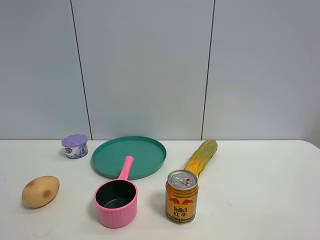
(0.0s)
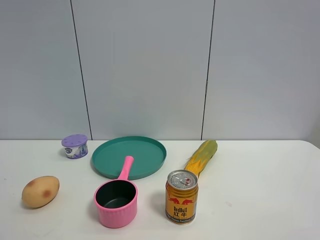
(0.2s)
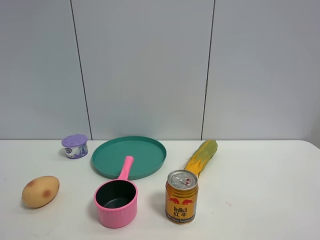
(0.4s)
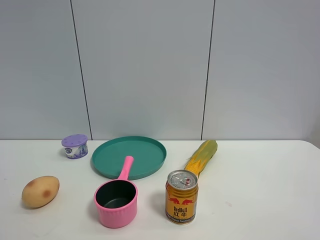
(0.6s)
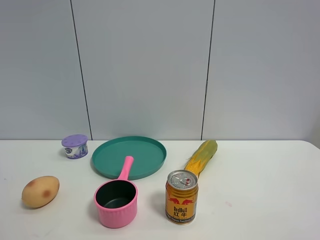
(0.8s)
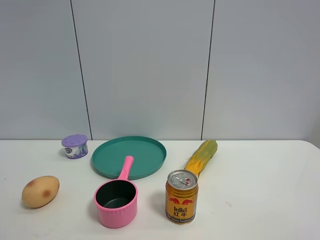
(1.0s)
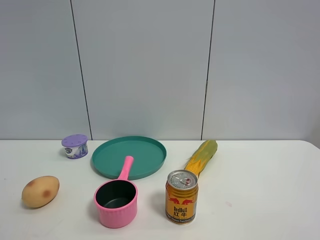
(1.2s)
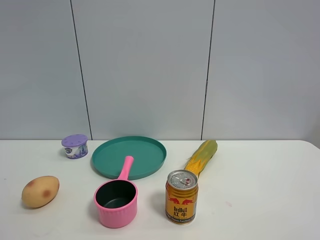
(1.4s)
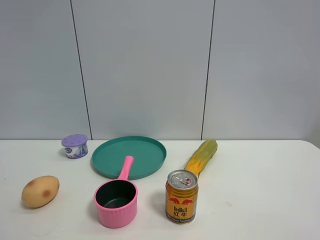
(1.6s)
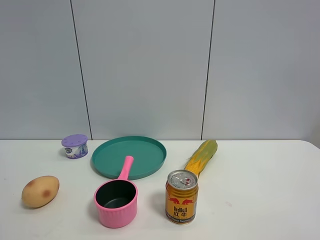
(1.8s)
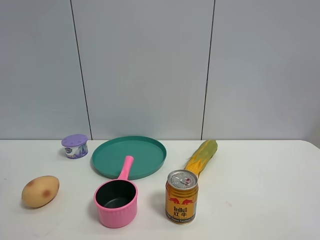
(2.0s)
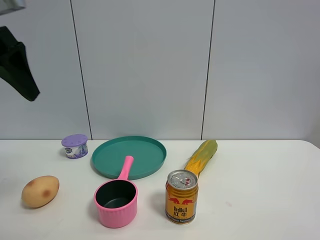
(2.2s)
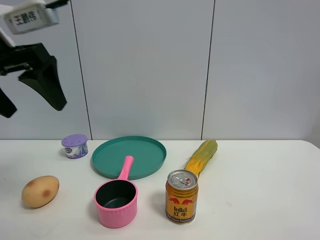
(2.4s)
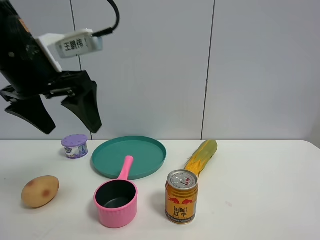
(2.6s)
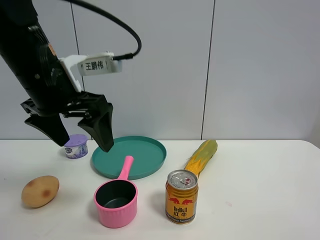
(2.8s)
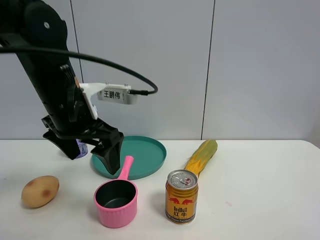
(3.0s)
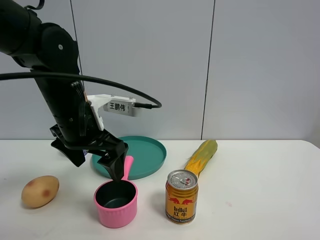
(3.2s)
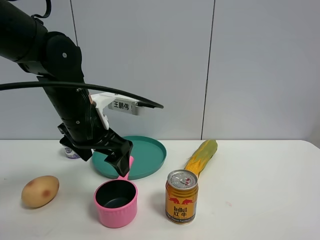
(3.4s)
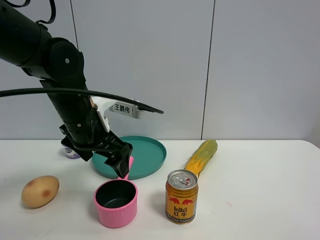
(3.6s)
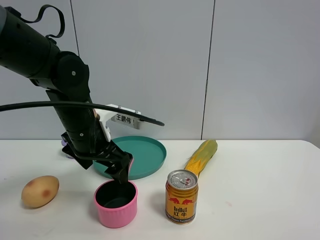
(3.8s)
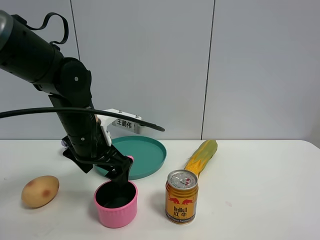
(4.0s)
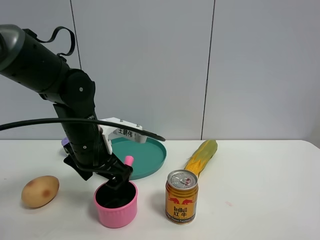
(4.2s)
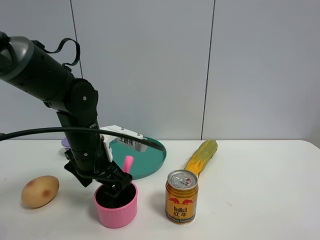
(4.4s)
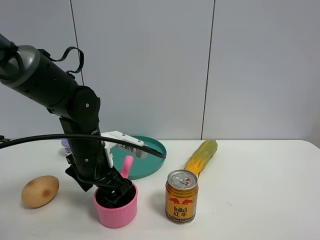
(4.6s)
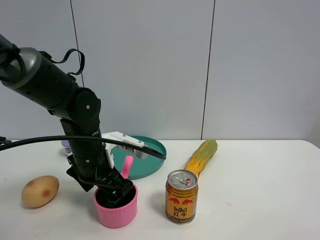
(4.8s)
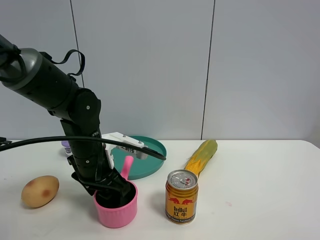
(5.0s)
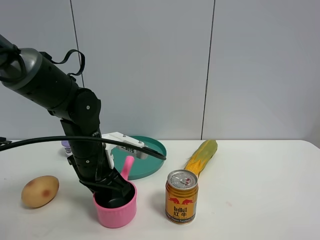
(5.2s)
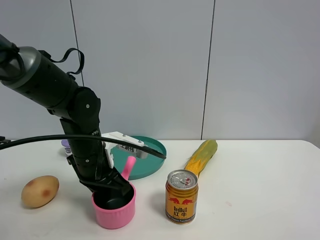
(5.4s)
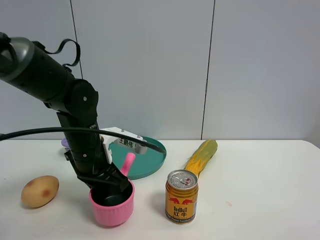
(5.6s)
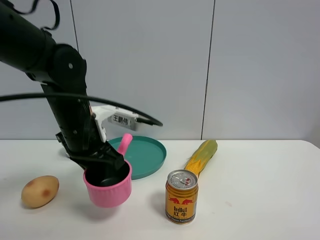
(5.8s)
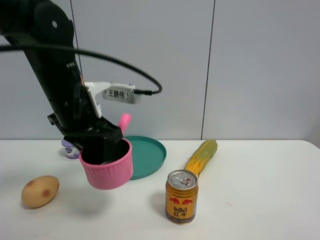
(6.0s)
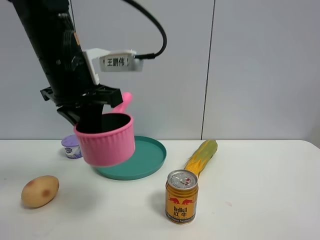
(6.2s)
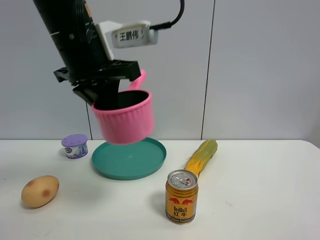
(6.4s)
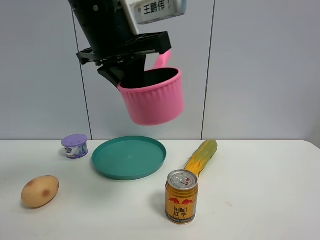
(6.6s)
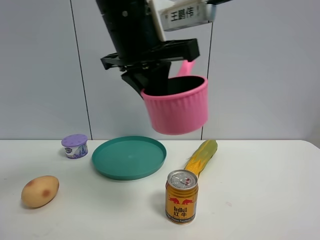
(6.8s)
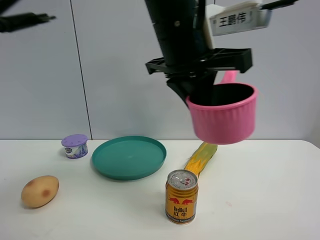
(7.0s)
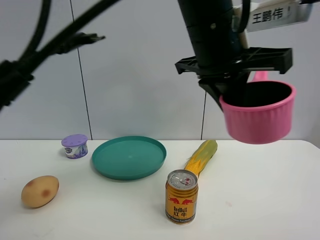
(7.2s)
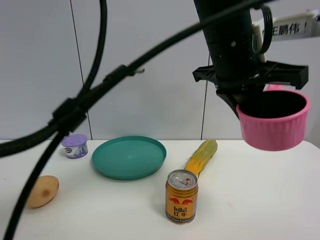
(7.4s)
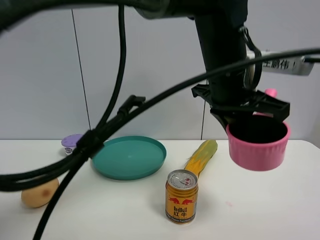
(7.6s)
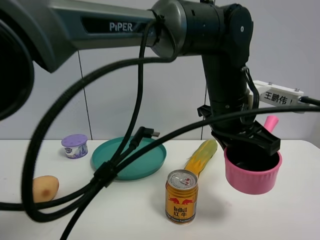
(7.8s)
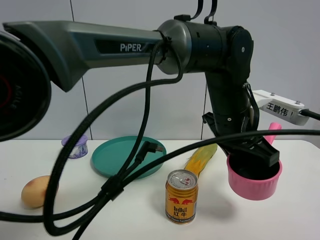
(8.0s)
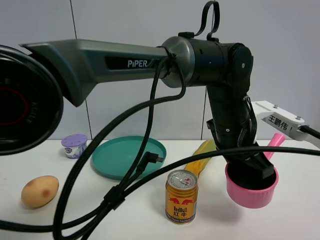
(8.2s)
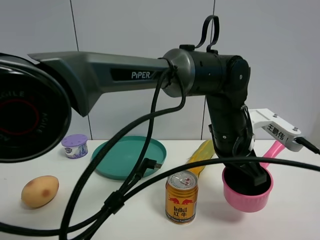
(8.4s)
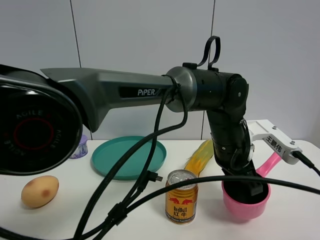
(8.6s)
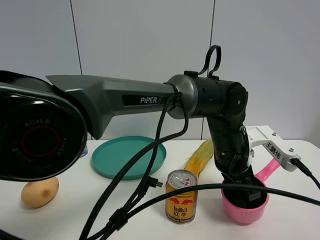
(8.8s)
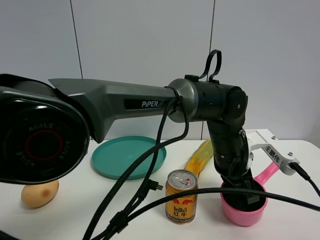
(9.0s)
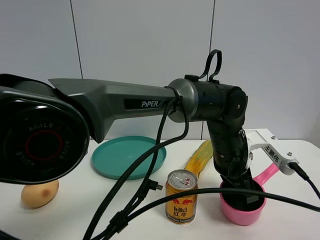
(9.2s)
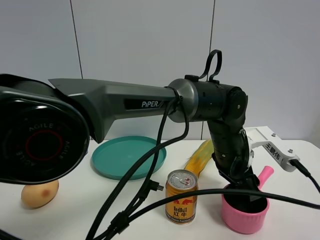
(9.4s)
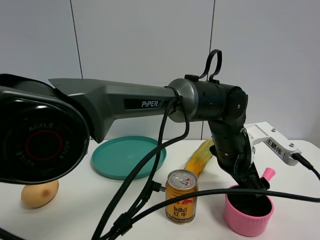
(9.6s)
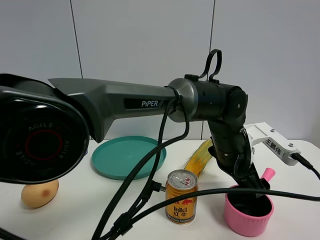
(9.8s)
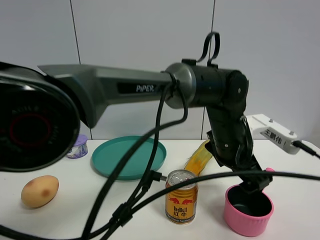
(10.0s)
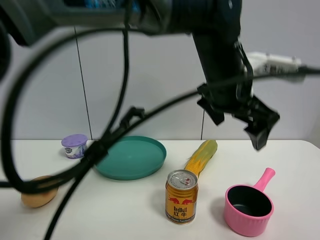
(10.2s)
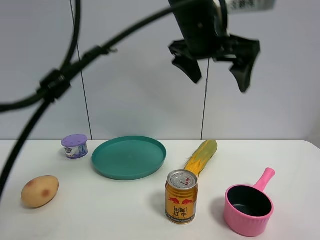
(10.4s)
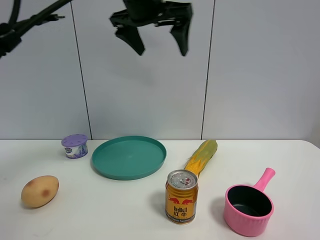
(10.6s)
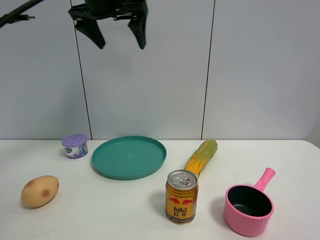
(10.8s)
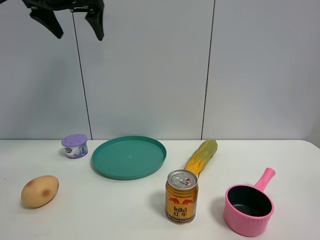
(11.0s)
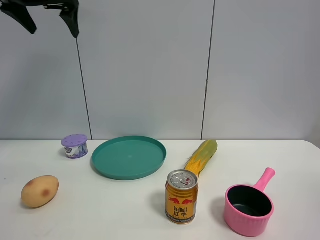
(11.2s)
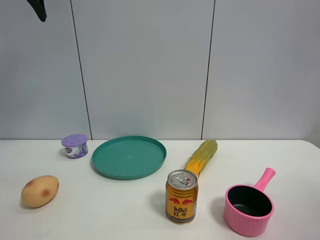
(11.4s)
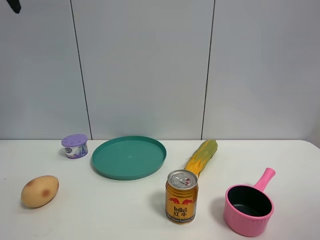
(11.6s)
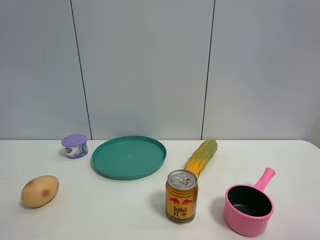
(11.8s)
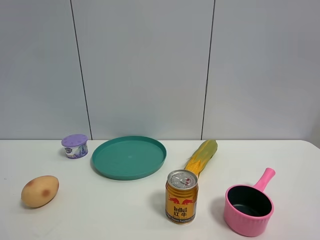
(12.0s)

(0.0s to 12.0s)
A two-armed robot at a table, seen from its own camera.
Task of the whole recording: the gripper move the object.
Step, 0.0s - 5.2s: Grasp the pink pot with the left gripper.
Step, 5.4s - 10.0s: Place the pink pot on the table with the left gripper.
1.6s - 3.0s: The left gripper shifts about 30 cm to the right, forward and downward.
3.0s - 4.4s: The left gripper shifts roughly 10 cm downward.
4.4s - 6.0s: The left gripper heads upward, covering about 10 cm, and closes.
6.0s - 7.6s: The left gripper heads to the right, covering some 25 cm.
7.6s - 9.0s: The left gripper moves downward, approximately 15 cm.
9.0s - 10.4s: The left gripper travels upward and to the left by about 25 cm, and opens.
10.4s - 12.0s: The left gripper heads to the left, covering some 40 cm.

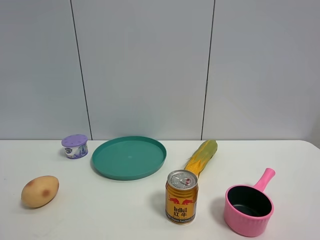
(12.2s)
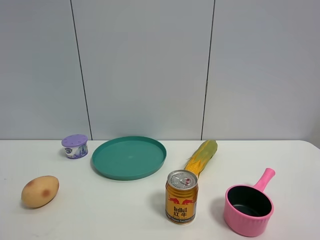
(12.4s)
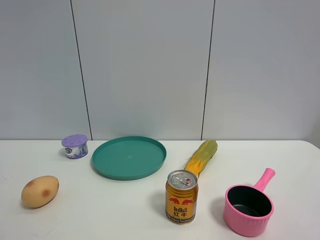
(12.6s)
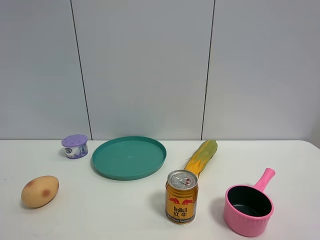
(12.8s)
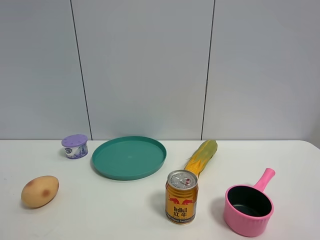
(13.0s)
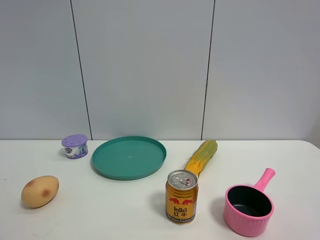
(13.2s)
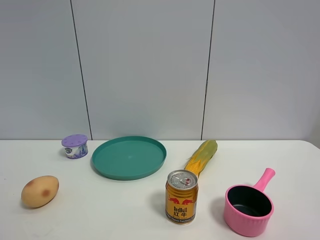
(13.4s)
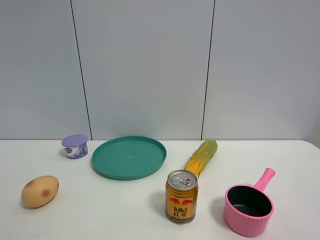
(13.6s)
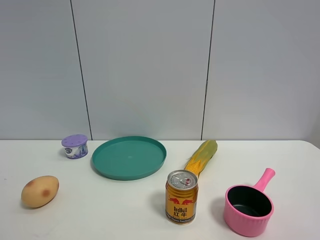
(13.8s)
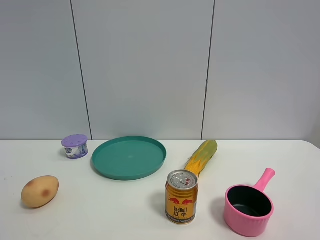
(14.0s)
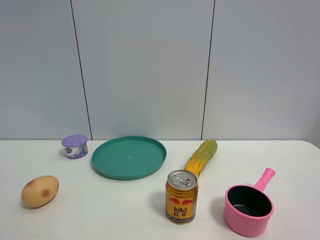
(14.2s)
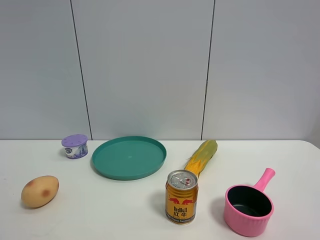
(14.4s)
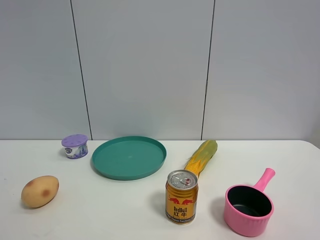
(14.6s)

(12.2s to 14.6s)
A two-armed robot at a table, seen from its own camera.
Task of the whole recording: the gripper move the object.
13.4s - 14.6s: Neither gripper changes place.

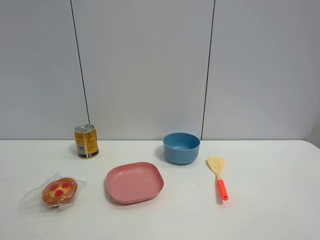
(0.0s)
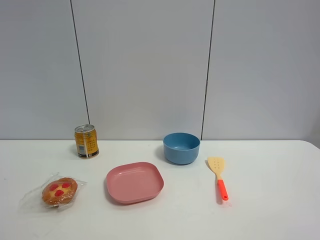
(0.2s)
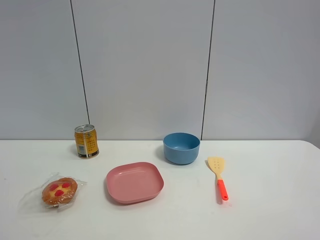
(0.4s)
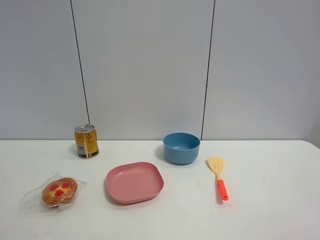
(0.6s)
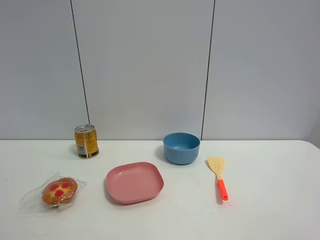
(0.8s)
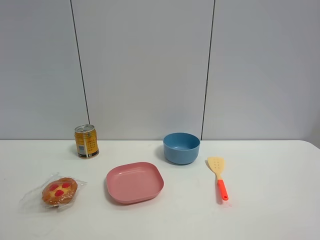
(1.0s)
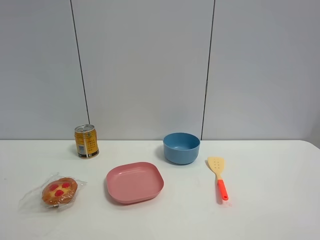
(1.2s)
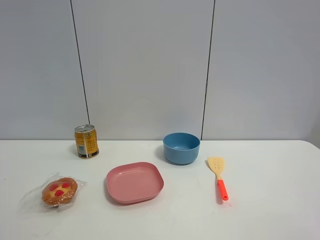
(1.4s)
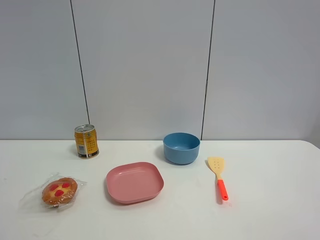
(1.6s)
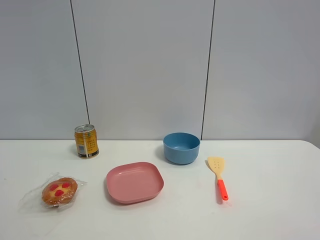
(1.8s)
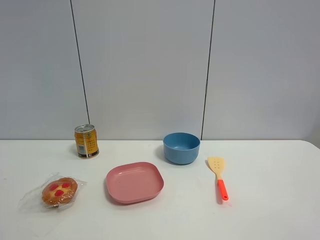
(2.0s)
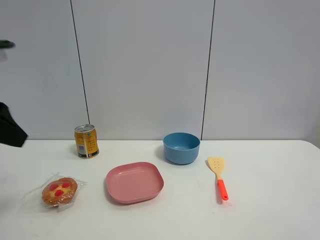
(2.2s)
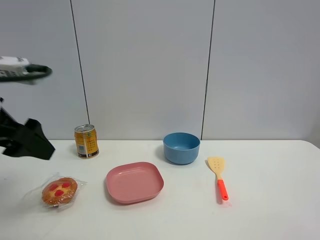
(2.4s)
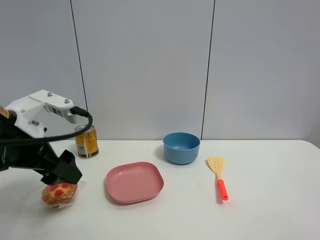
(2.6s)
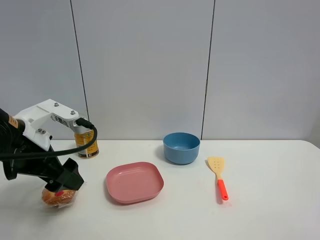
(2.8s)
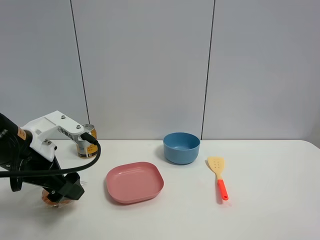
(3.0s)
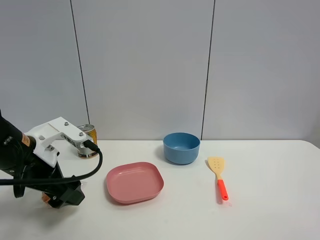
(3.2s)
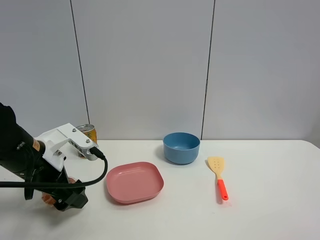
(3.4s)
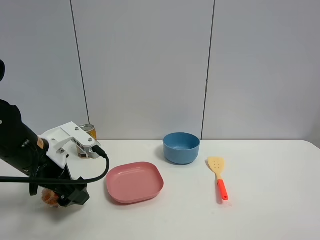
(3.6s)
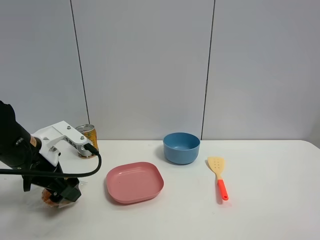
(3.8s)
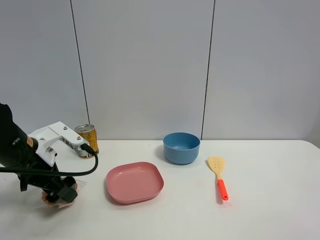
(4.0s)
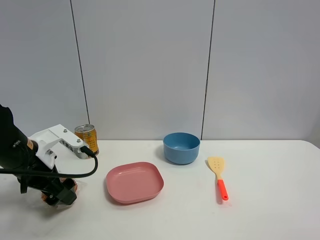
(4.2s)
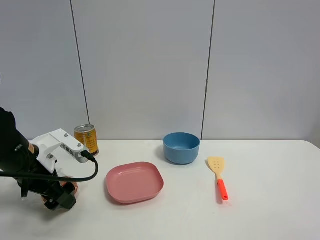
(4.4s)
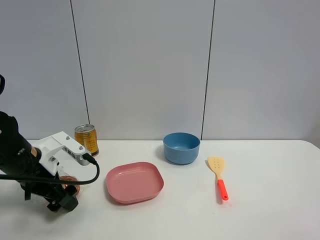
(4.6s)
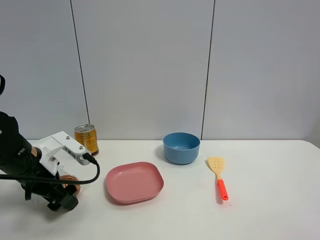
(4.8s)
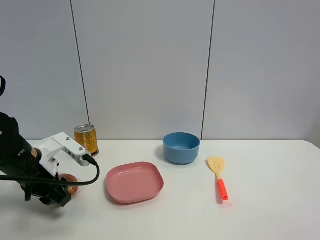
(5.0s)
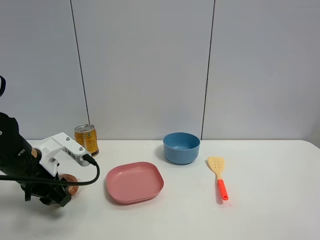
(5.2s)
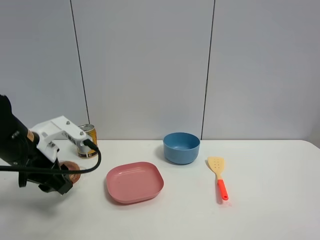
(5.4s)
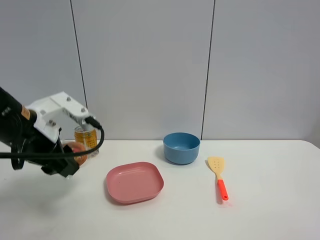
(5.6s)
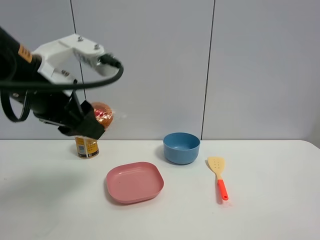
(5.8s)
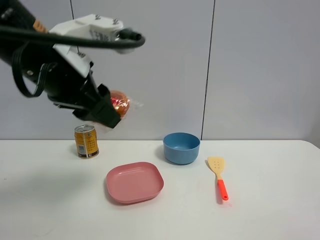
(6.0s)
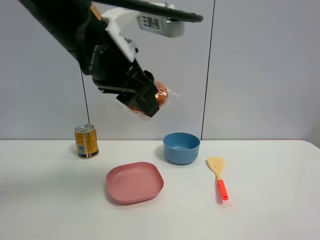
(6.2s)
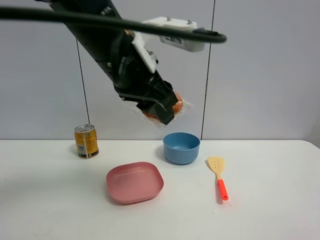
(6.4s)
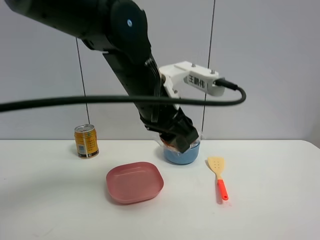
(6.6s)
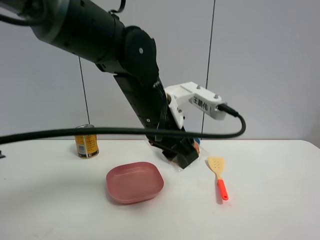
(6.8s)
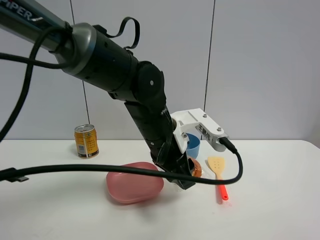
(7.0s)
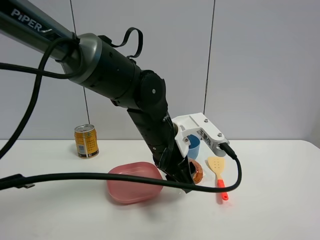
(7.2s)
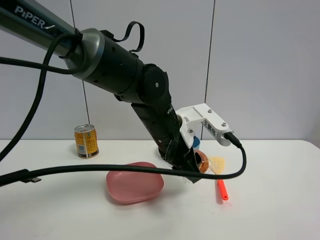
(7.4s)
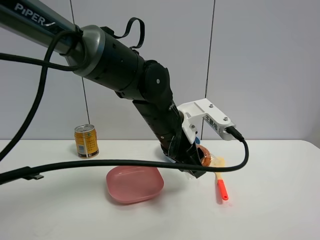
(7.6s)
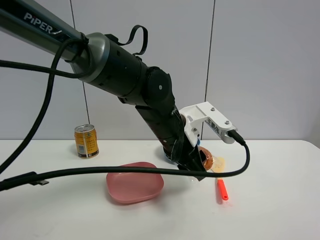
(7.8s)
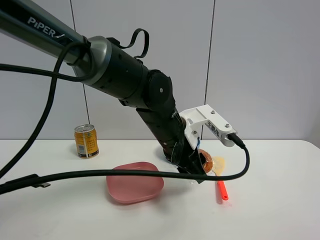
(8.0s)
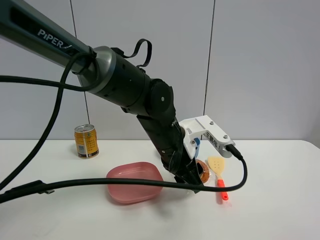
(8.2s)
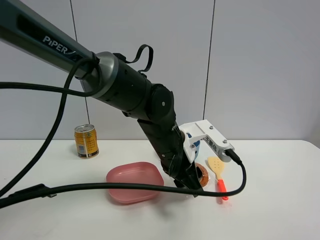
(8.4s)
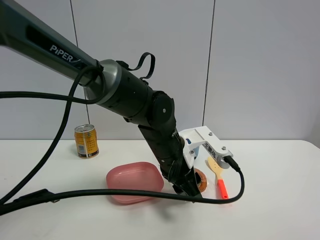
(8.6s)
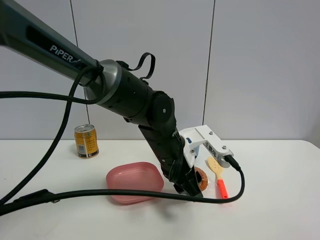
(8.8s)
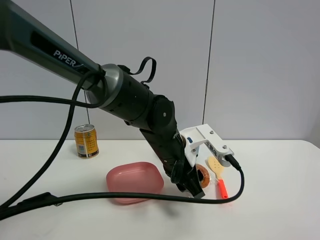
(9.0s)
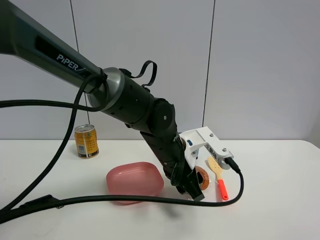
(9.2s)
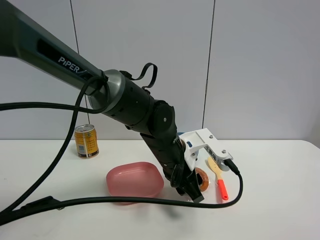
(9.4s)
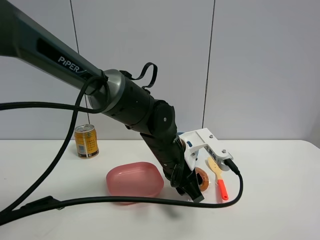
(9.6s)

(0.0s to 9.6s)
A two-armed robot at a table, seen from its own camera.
Task of the whole recording: the gripper move the object.
Step, 0.0s - 4.8s: Grasp the egg tart with the left gripper.
1.6s - 3.2s: The left gripper shifts some 30 cm forward, downward and to the right.
3.2s - 4.8s: The left gripper shifts by roughly 5 cm.
4.8s - 6.4s: The left gripper heads to the right and upward, covering approximately 25 cm, and closes its fingers.
6.4s - 8.0s: The left gripper goes roughly 15 cm downward and to the right.
